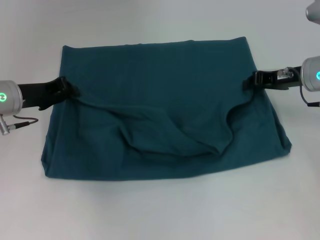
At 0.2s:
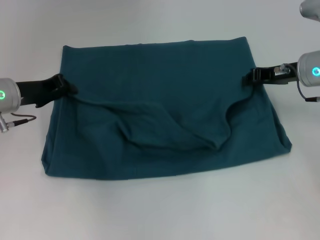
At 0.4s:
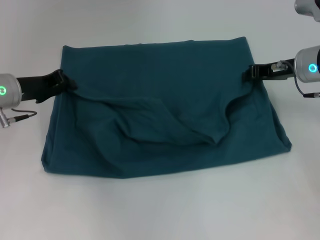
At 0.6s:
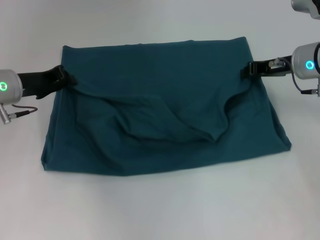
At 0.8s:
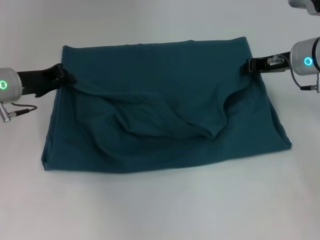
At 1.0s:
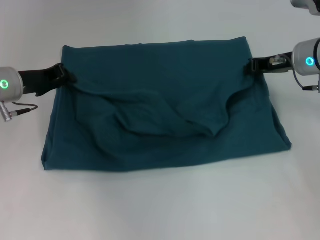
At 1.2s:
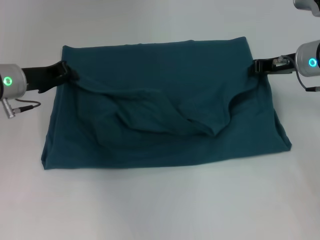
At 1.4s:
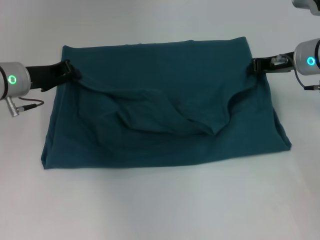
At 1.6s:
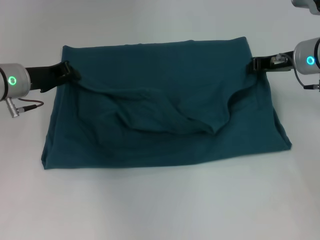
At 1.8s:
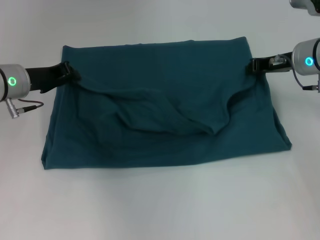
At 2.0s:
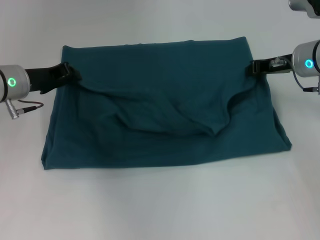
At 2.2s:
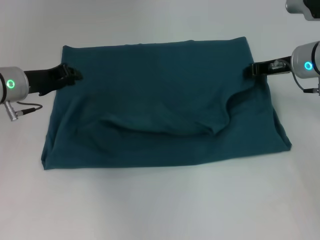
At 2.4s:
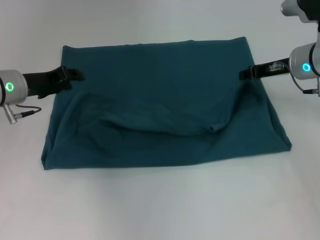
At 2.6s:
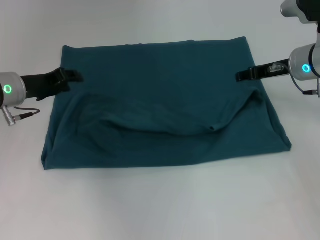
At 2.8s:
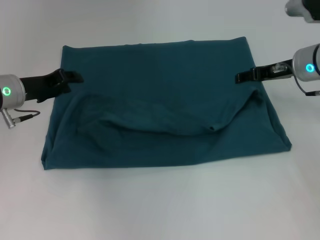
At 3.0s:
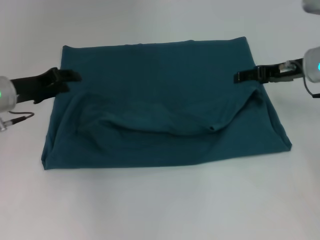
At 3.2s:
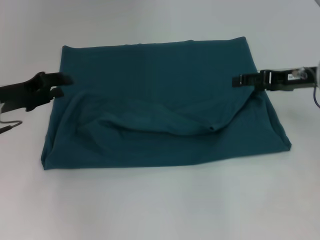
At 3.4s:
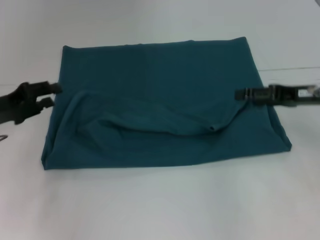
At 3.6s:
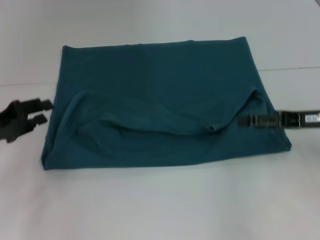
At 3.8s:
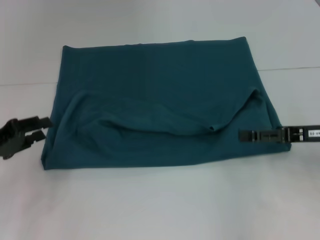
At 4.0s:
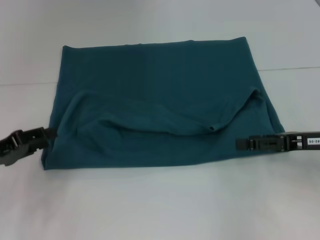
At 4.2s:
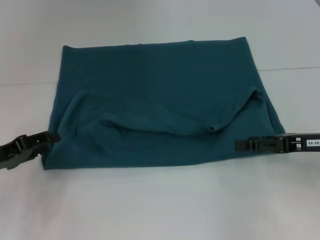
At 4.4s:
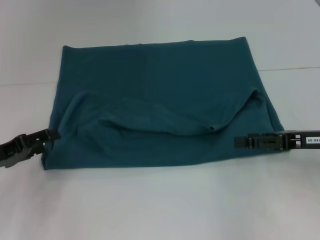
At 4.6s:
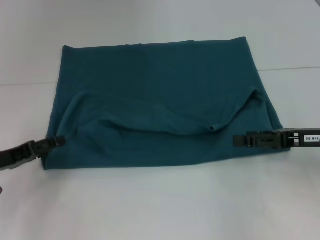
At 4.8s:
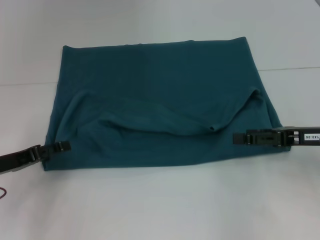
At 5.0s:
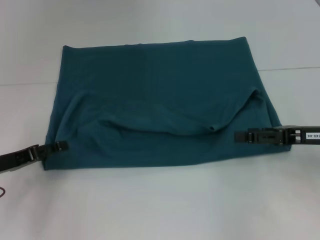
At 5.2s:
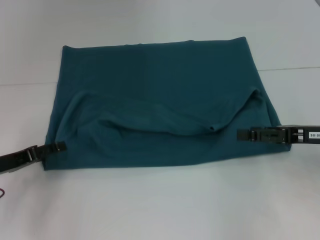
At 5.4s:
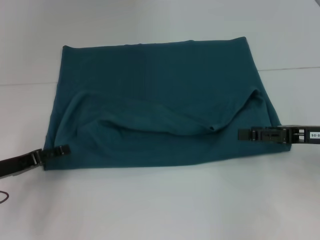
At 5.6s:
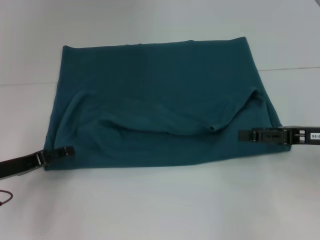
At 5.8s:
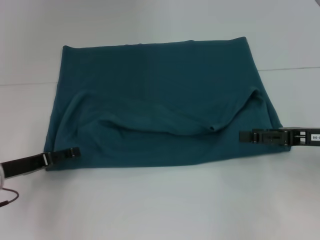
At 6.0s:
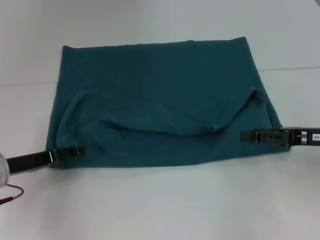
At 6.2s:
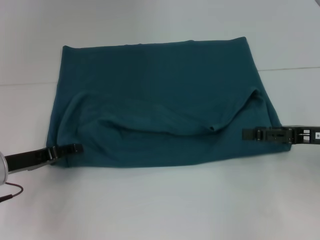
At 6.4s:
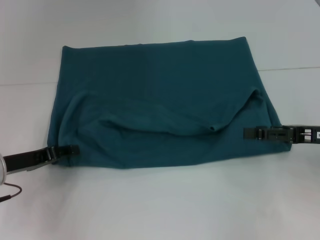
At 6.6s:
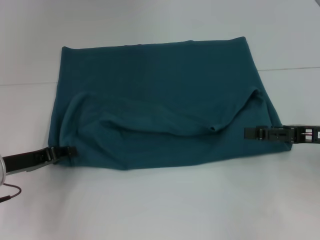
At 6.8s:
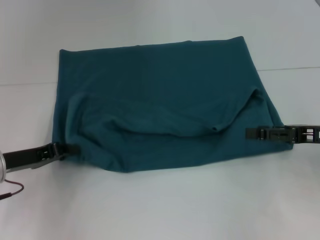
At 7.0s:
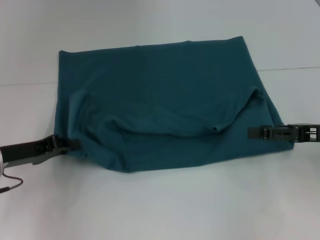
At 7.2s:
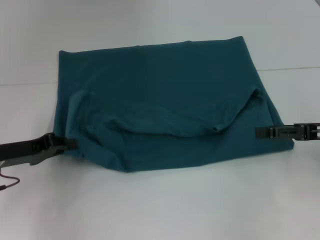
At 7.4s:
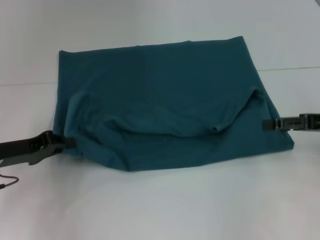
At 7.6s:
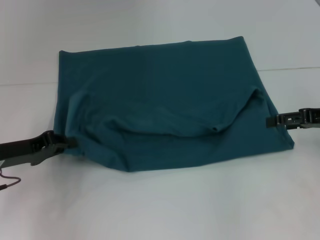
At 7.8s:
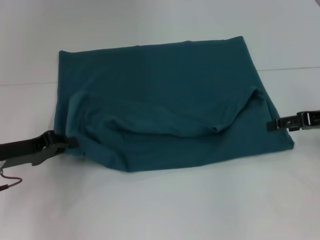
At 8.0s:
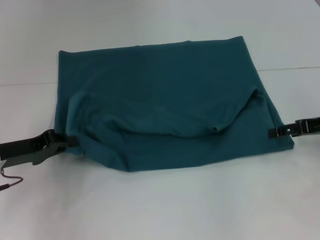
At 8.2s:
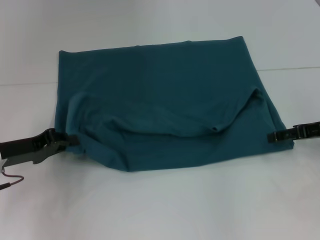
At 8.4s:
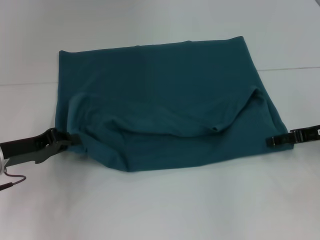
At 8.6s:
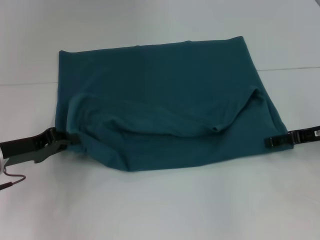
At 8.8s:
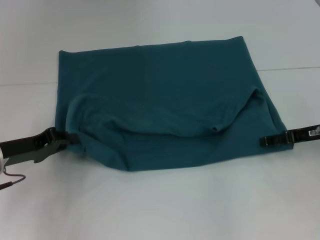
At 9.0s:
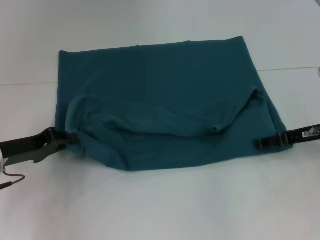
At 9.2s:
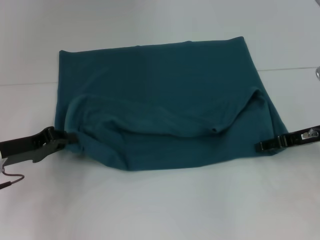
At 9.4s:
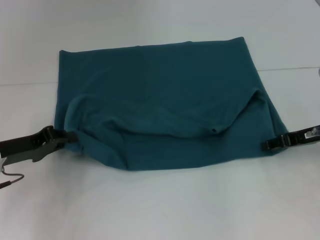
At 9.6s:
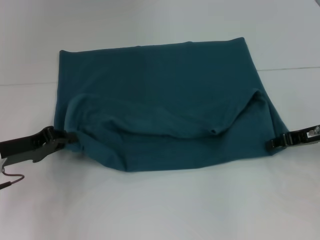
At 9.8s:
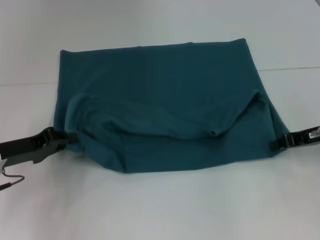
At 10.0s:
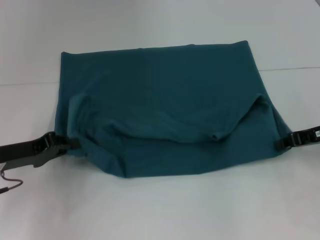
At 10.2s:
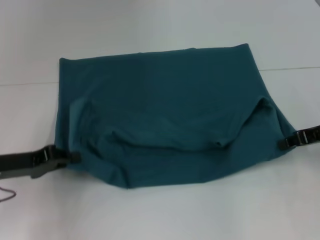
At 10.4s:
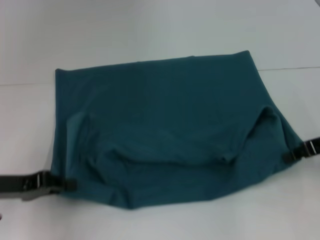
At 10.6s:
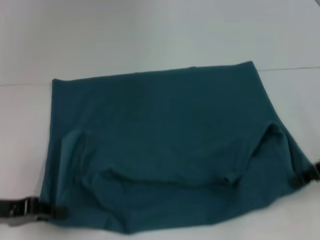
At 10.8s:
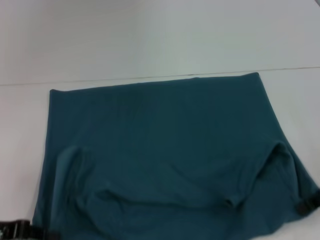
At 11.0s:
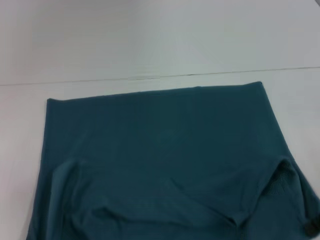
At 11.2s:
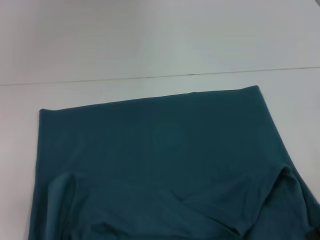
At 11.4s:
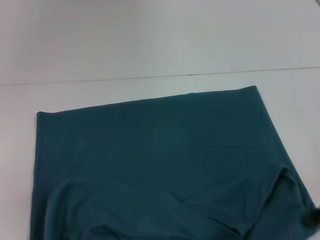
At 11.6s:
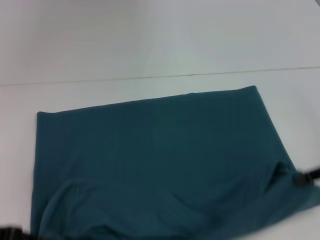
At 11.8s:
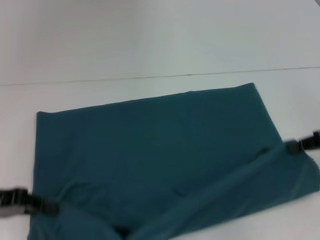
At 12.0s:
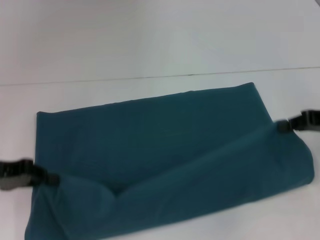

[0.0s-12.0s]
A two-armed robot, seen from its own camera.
Step, 0.0s to 2.8s: Fold the clothes to the left.
Step, 0.0s to 2.8s: Fold the clothes to the right.
Step, 3.0s to 11.0s: Pull the clothes with your left hand.
Step, 3.0s to 11.0s: Pull the clothes with your right hand.
0.0s to 1.6s: The grippers make only small movements.
1.6s to 3.0s: The left gripper opens its fingers. Meanwhile the right gripper opens.
3.0s to 4.4s: The left gripper heads backward and to the left, covering approximately 10 cm. Meanwhile the right gripper is displaced backward by approximately 10 cm.
4.4s to 6.0s: There are only small adjustments of the grippers.
6.0s to 7.6s: The left gripper closes its fingers. The right gripper ends up some 5 cm from where it was.
7.6s to 9.0s: The right gripper ends up about 5 cm from where it was.
9.0s to 10.4s: The right gripper moves roughly 5 cm, and closes its fingers.
10.4s to 12.0s: The left gripper travels backward and back again, approximately 10 cm each way.

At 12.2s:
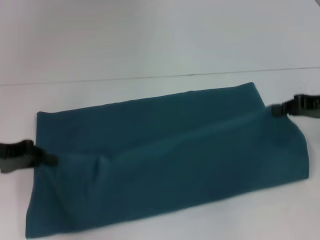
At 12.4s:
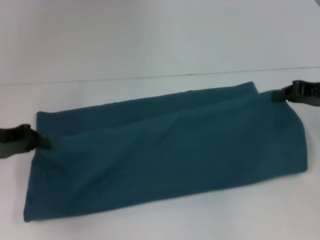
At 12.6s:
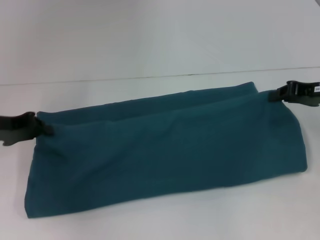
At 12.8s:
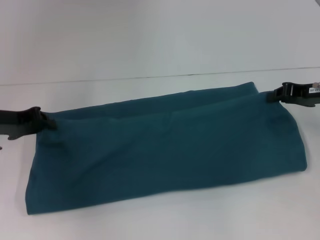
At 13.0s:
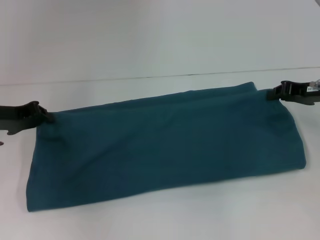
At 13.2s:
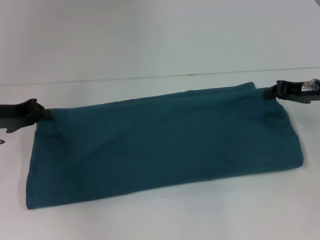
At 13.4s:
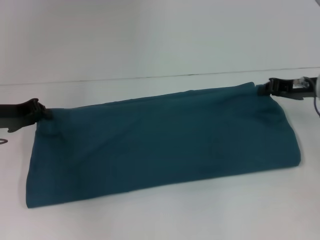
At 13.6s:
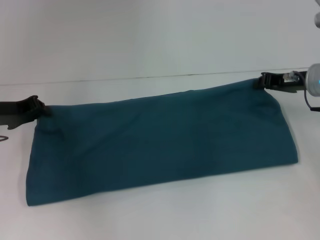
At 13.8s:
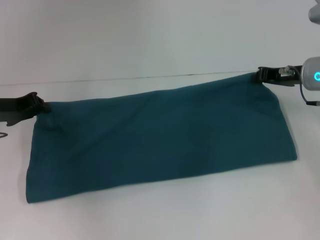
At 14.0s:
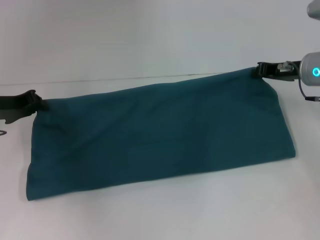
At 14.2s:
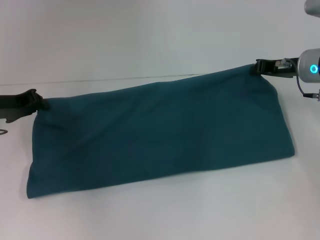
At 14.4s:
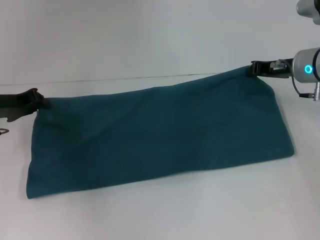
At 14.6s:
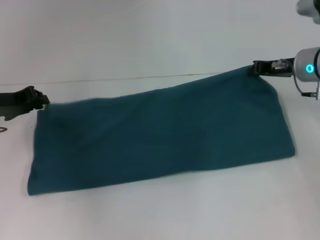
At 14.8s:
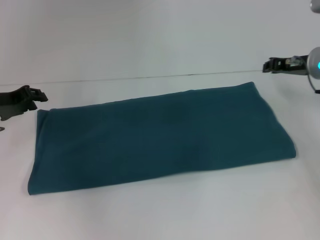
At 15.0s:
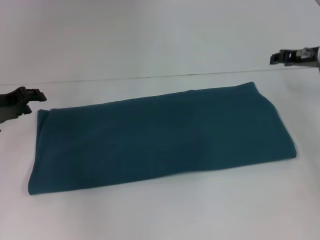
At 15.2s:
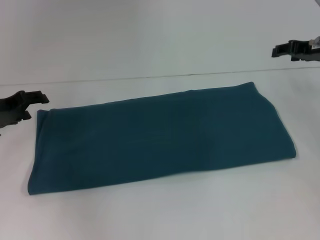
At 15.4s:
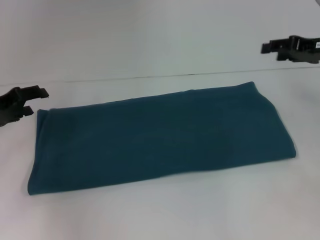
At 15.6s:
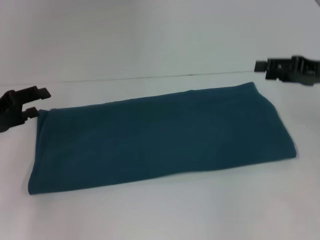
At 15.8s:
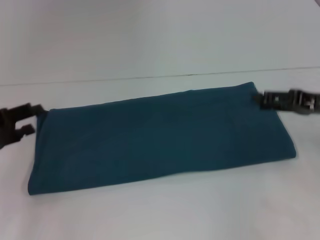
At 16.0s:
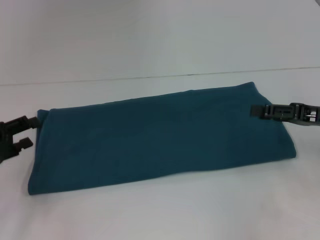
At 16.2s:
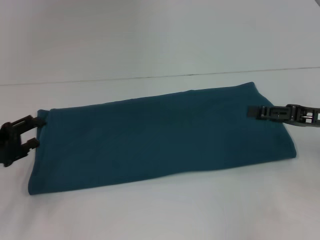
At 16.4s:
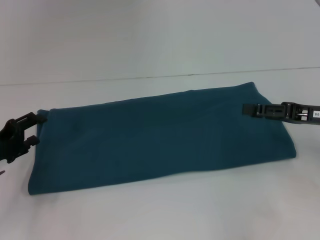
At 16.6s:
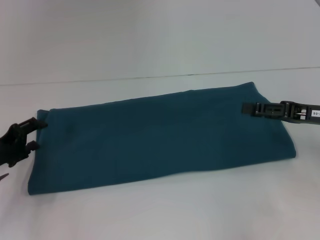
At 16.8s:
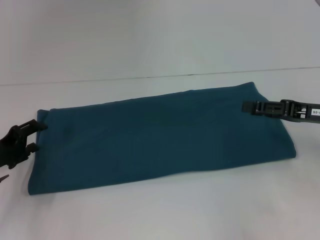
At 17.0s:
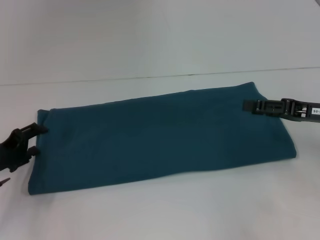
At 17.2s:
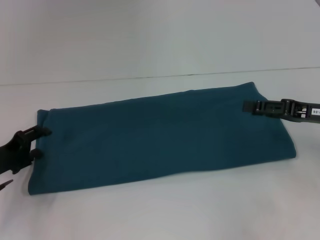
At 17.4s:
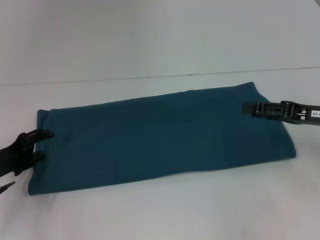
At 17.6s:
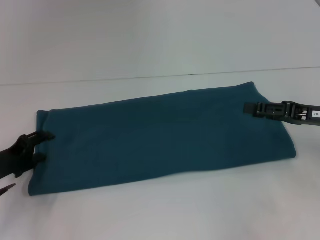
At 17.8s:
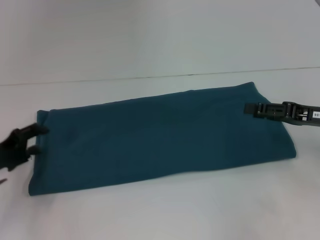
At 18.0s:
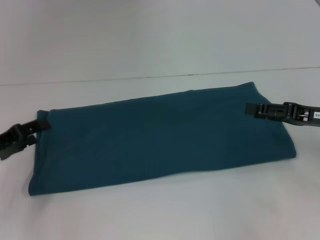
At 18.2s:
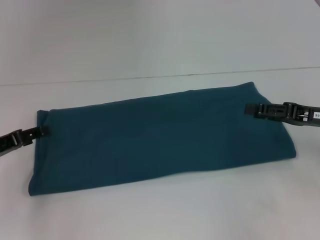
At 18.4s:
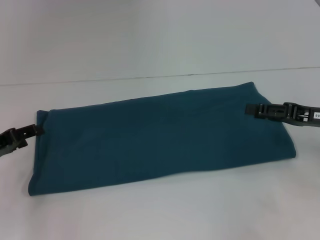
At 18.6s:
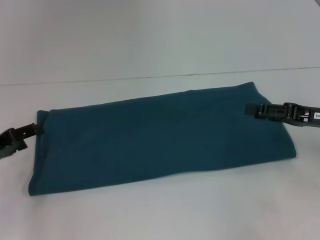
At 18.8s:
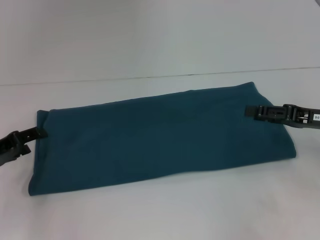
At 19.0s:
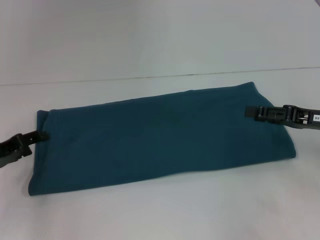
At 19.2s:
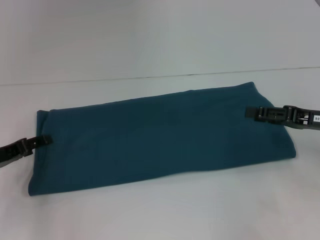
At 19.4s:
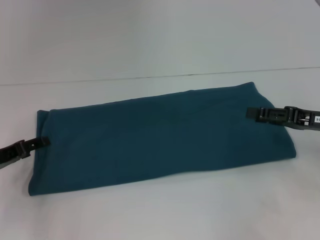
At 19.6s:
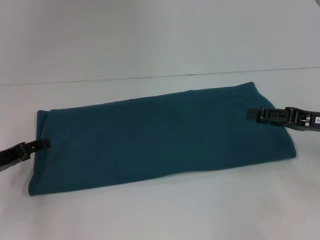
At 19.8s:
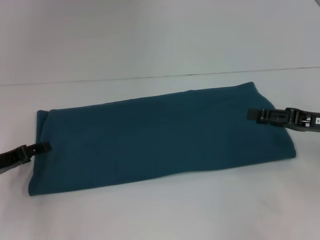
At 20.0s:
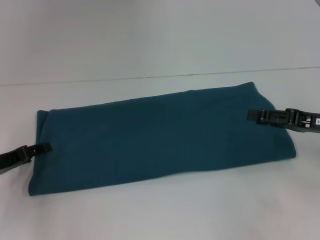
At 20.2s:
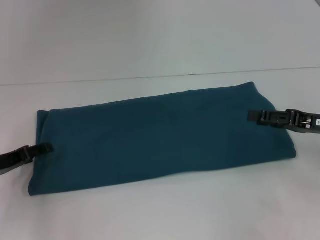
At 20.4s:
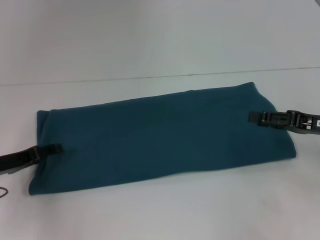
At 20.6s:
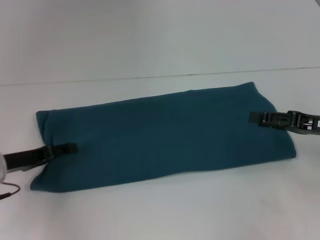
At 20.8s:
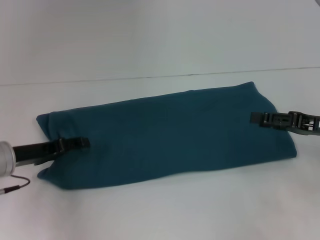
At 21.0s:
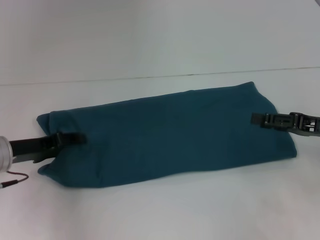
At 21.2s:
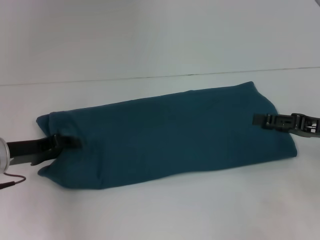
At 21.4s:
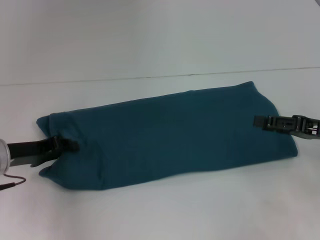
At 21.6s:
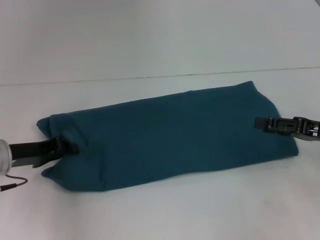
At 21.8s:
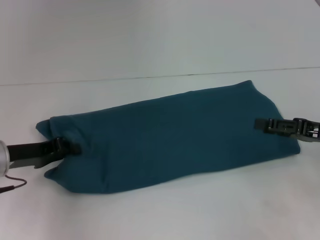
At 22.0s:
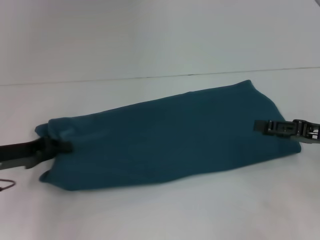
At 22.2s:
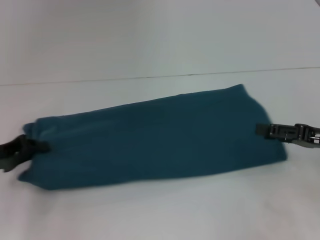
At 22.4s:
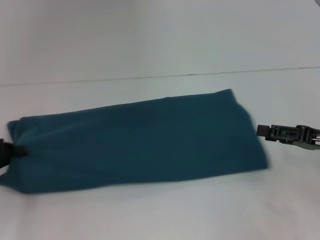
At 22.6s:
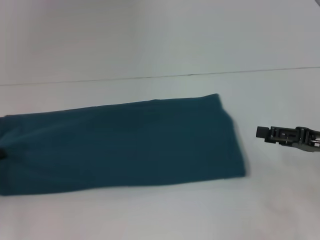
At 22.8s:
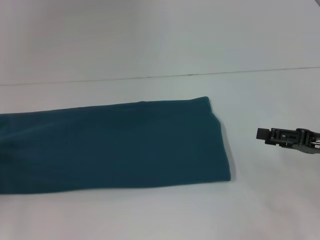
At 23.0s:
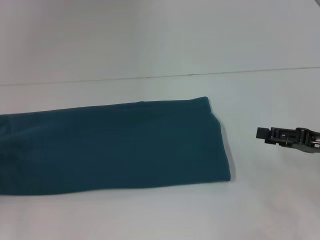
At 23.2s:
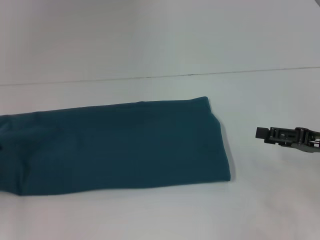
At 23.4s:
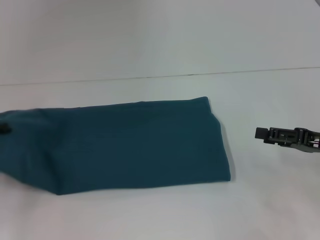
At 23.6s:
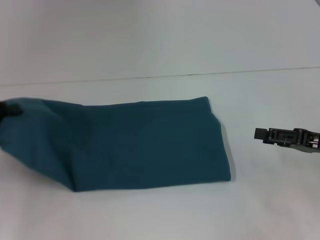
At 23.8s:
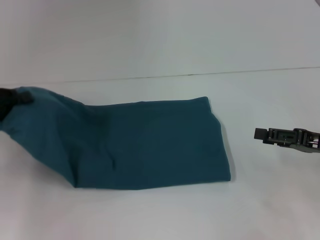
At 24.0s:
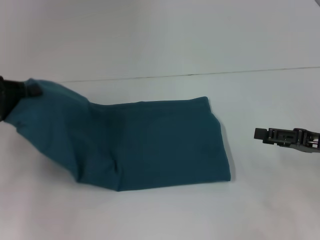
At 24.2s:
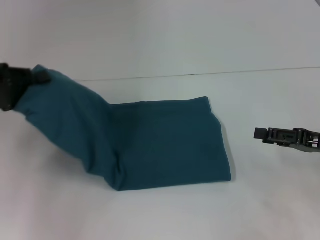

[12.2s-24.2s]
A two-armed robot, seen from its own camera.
Step, 12.2s to 14.8s: Fold the clothes to the right.
12.2s to 13.8s: The left gripper travels forward by some 5 cm. Meanwhile the right gripper travels forward and to the left by roughly 10 cm.
13.8s to 15.2s: The left gripper opens its fingers, while the right gripper changes place by approximately 5 cm, and opens up.
15.2s to 16.6s: The left gripper is displaced backward and downward by approximately 10 cm. Meanwhile the right gripper is displaced backward by about 10 cm.
18.2s to 19.8s: The grippers stay close to where they were, moving slightly.
19.8s to 21.2s: The left gripper moves approximately 5 cm.
21.2s to 22.6s: The left gripper moves to the left, about 10 cm, and closes its fingers.
22.6s to 24.2s: The left gripper shifts roughly 10 cm upward and to the right.
